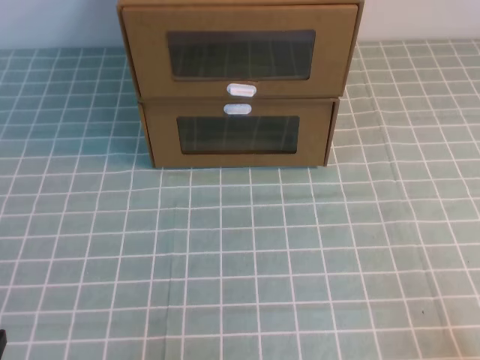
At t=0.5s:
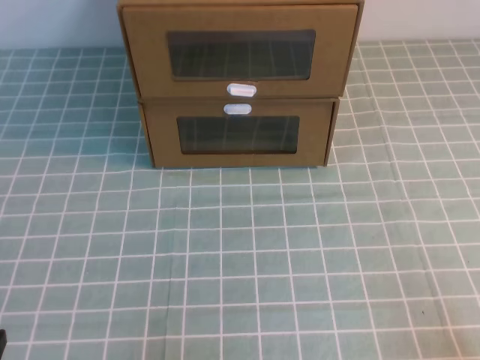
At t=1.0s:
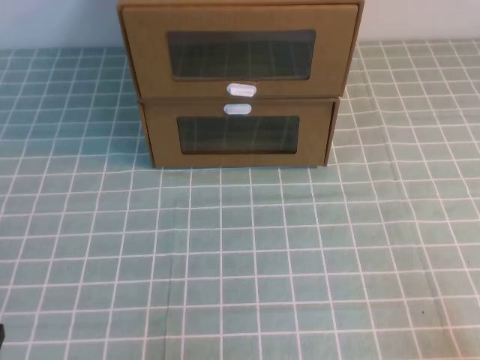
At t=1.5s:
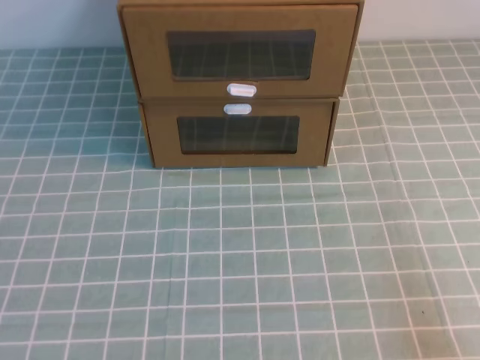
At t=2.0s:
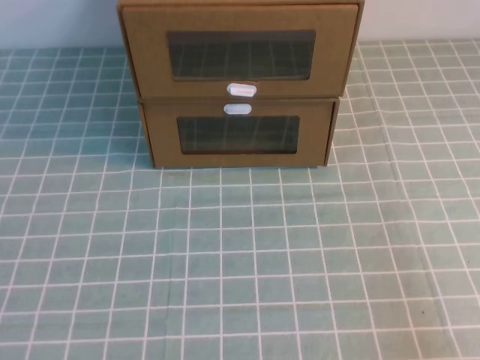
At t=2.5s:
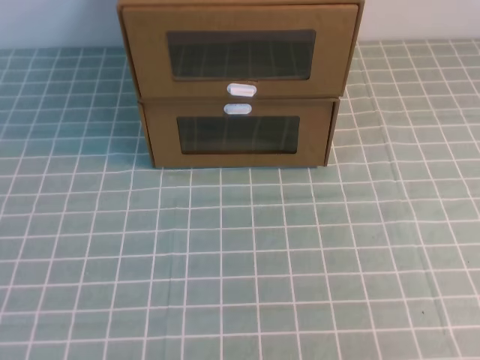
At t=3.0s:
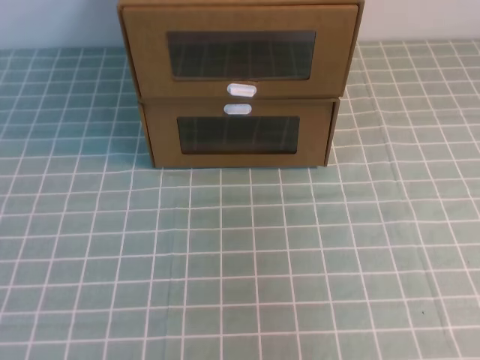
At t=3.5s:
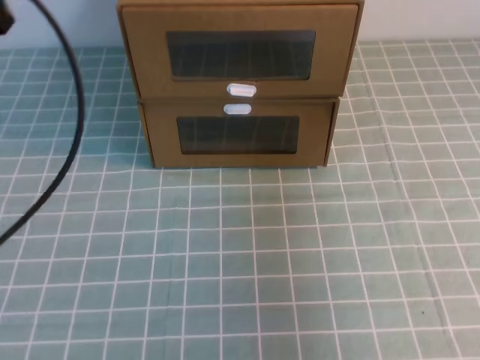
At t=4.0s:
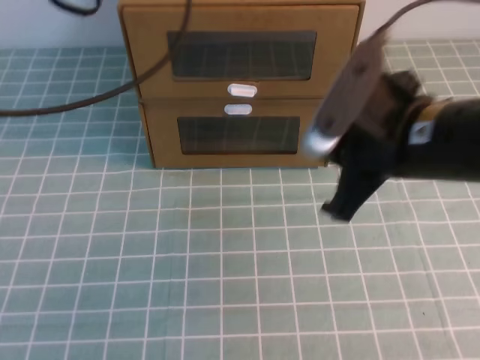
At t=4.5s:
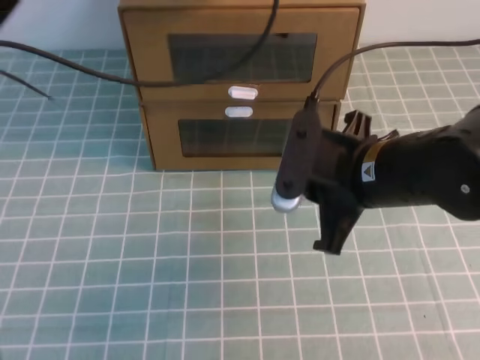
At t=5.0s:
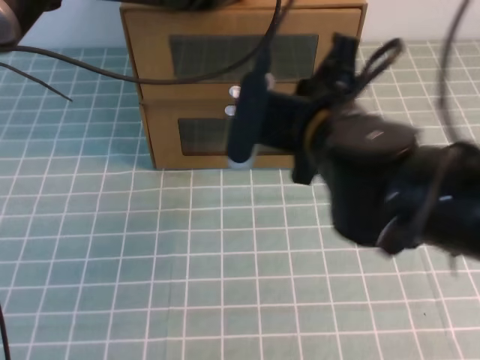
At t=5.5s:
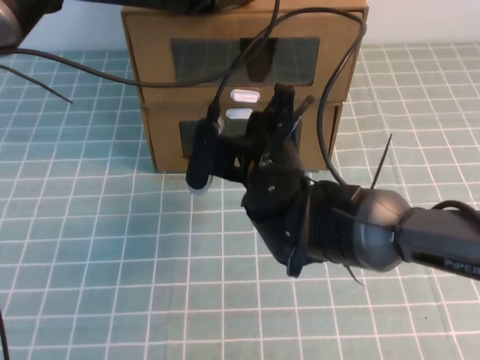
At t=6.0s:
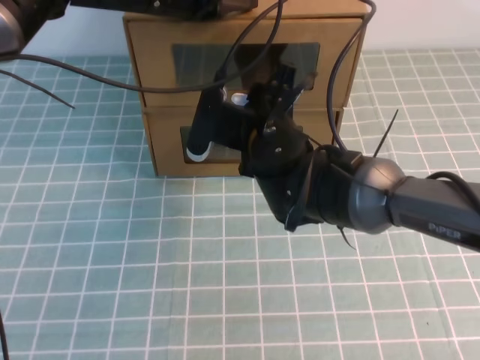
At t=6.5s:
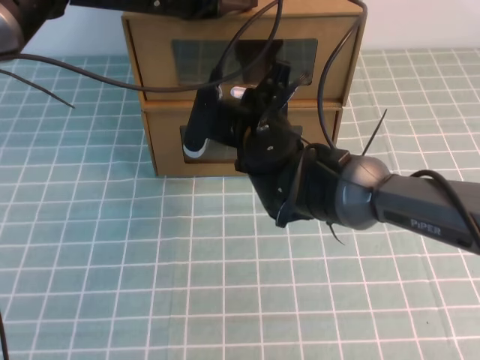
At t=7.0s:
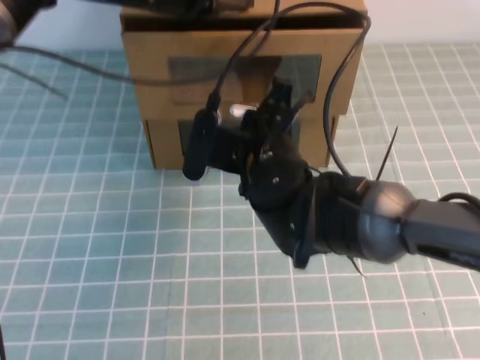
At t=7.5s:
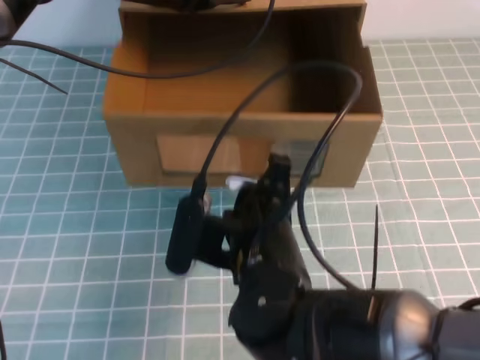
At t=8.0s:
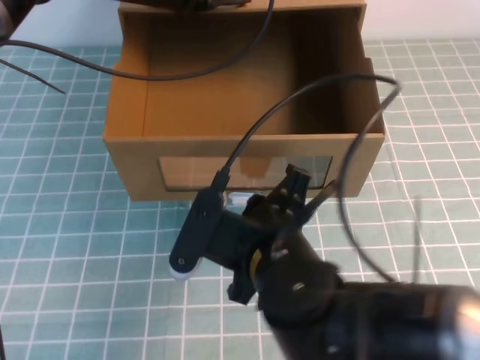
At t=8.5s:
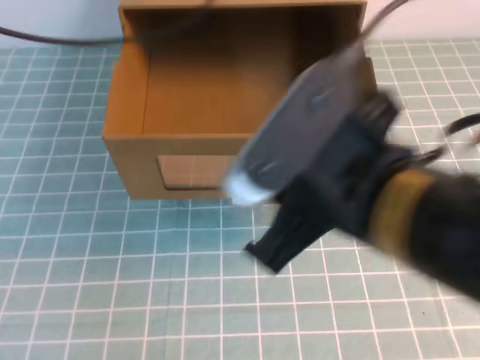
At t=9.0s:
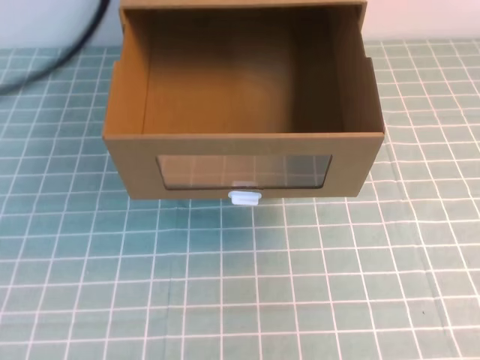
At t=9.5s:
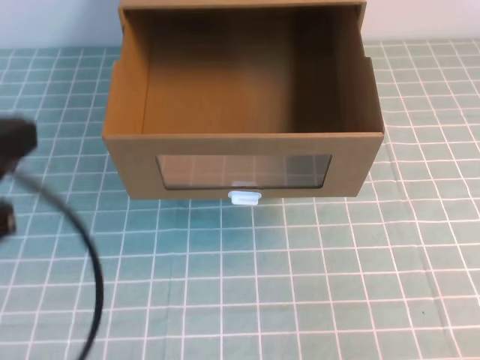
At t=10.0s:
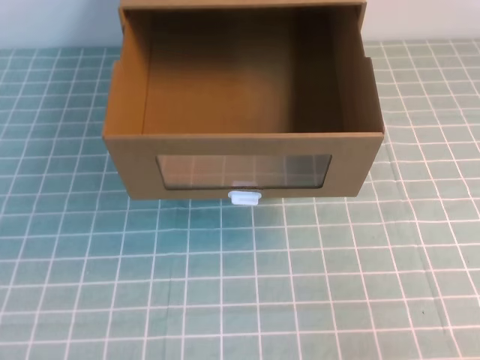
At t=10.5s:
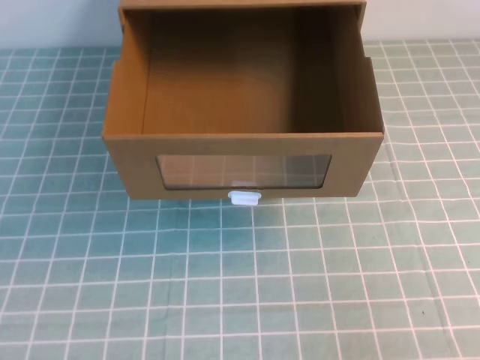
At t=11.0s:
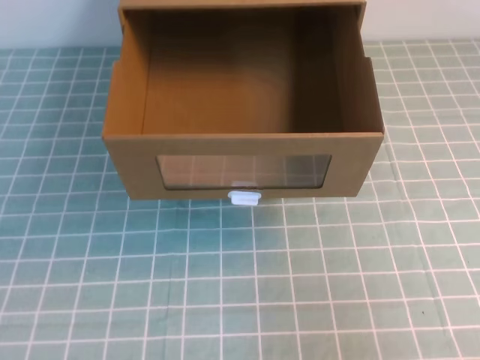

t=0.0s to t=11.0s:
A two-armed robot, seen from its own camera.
Task of the whole recording: open the shoebox on the cyan tablecloth.
t=2.0s to t=3.5s: The two grippers go approximately 25 cm forward and upward.
t=3.5s to t=5.5s: The right gripper is displaced to the left and downward by roughly 35 cm, and opens up. Meanwhile the left gripper heads forward and to the right, covering some 25 cm.
t=5.5s to t=7.5s: The right gripper goes some 10 cm backward, and closes its fingers.
t=7.5s to t=9.0s: The right gripper travels to the right, upward and backward by roughly 35 cm, and opens, then closes again, while the left gripper travels backward, upward and to the left by roughly 30 cm.
t=9.0s to t=11.0s: The left gripper shifts approximately 30 cm downward and backward. Meanwhile the right gripper goes approximately 10 cm downward.

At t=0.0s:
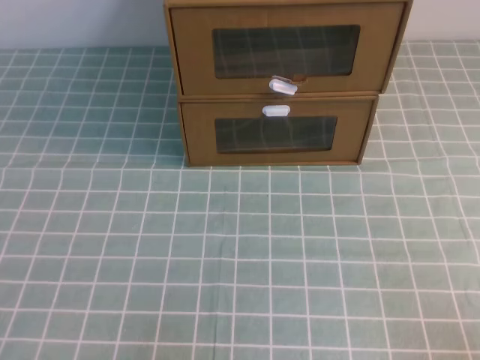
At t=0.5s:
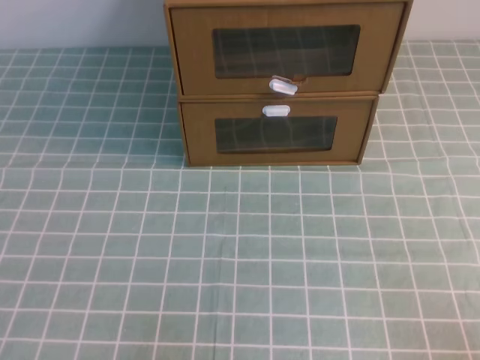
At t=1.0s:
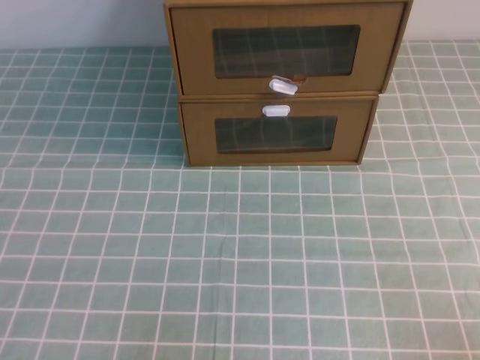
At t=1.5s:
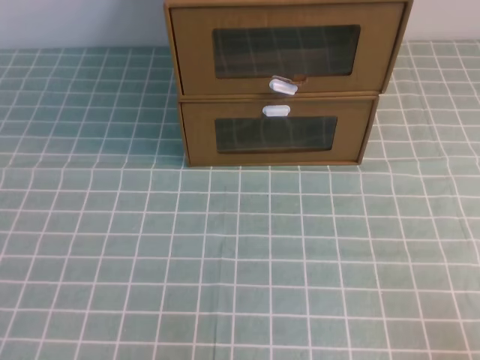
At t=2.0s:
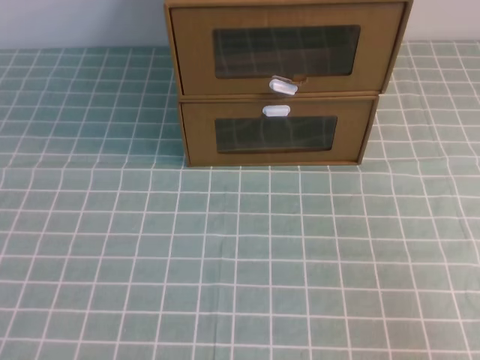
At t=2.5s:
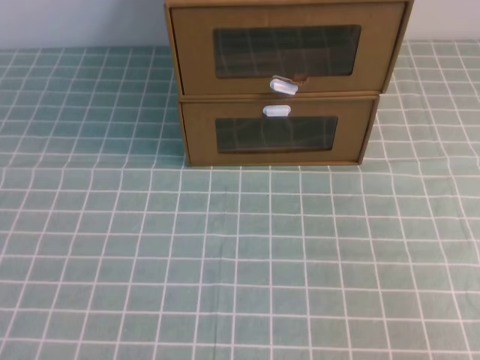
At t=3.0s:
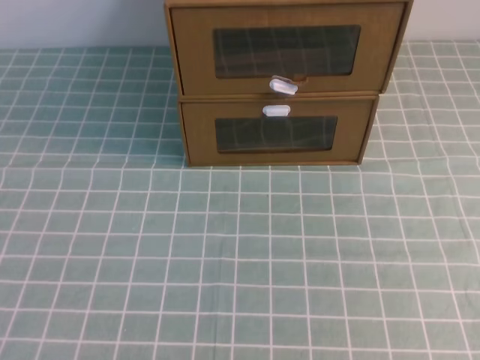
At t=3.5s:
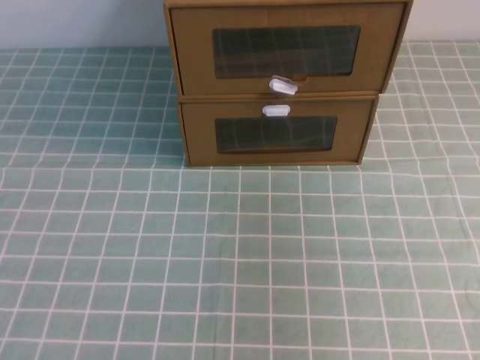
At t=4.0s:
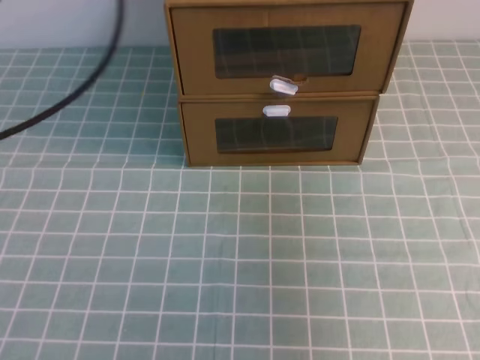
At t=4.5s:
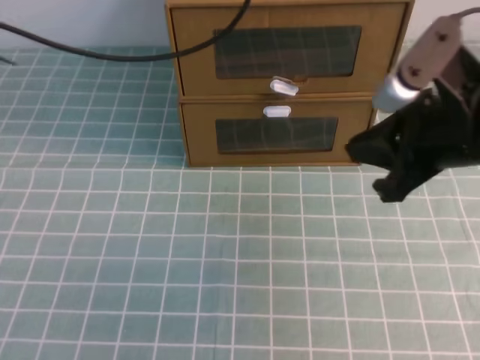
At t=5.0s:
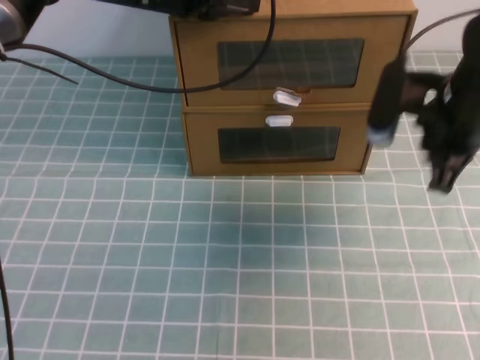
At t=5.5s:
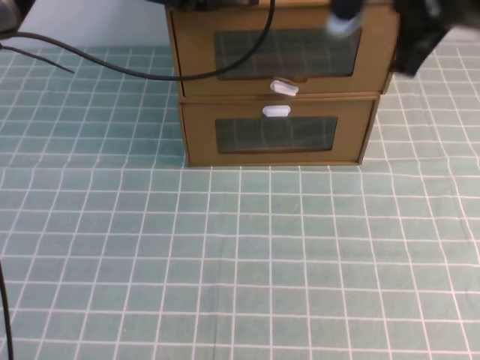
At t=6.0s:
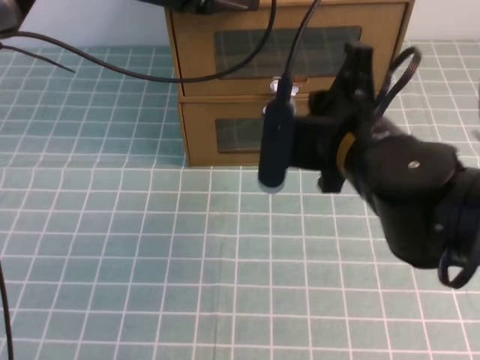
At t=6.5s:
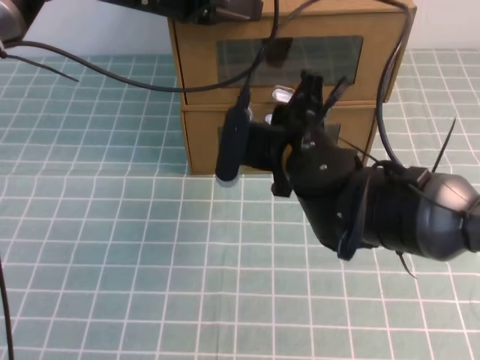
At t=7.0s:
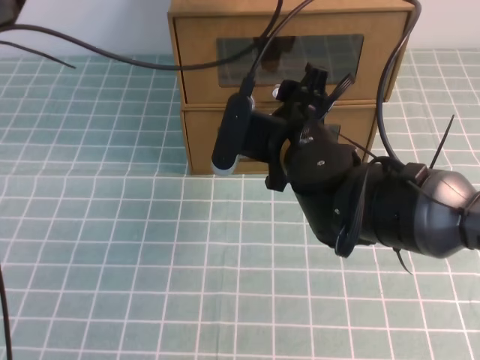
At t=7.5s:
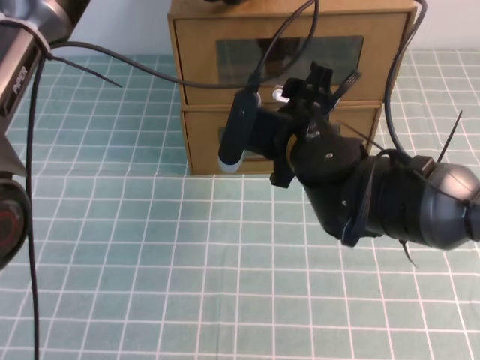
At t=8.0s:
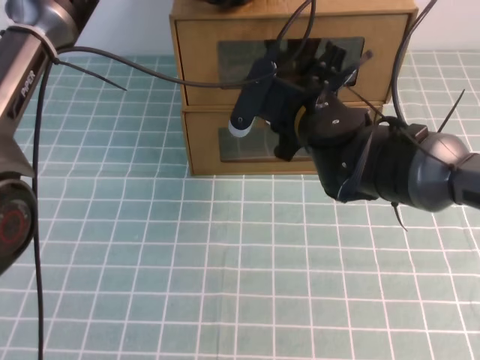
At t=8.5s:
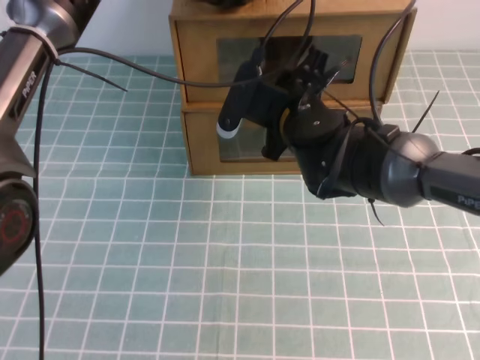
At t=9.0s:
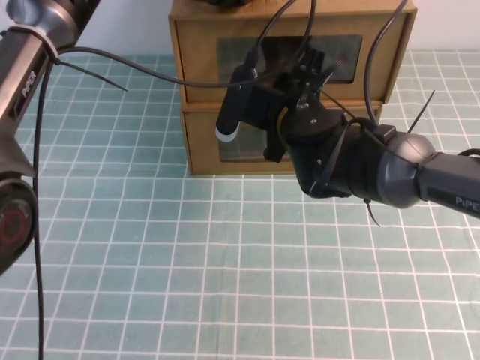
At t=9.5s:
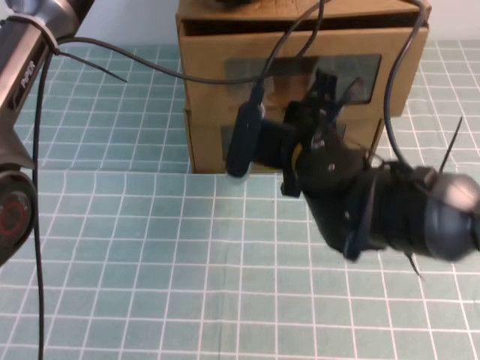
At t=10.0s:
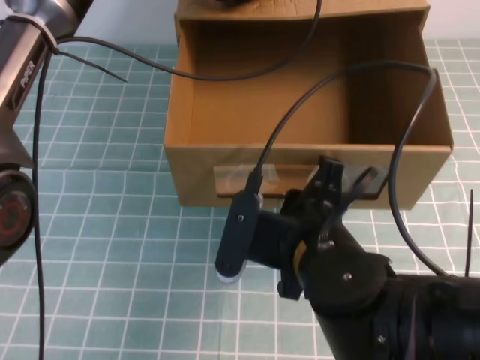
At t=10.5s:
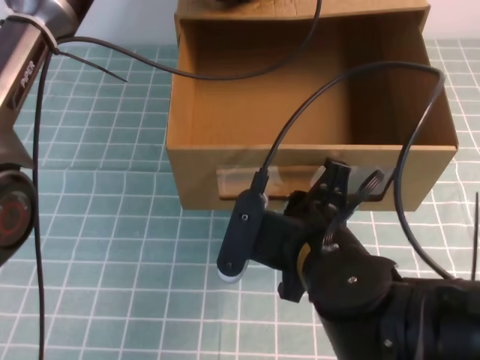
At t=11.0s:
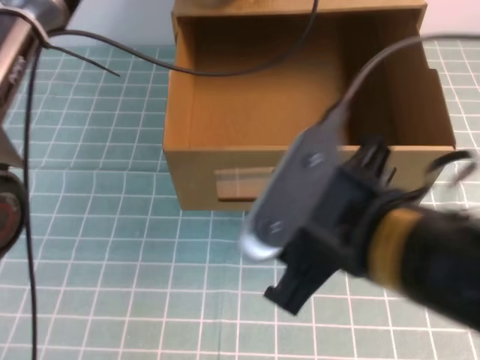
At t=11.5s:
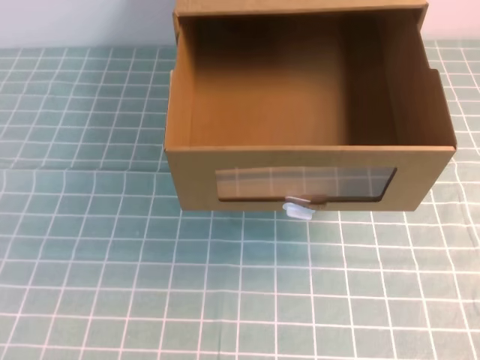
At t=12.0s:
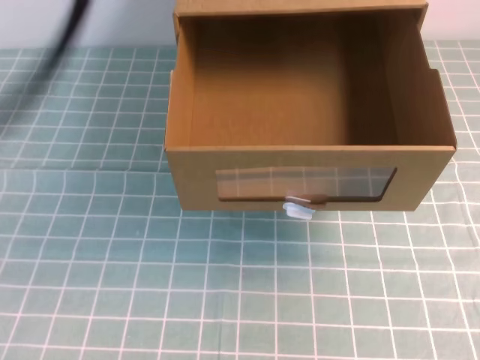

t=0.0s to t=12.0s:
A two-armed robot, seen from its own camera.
Task of the whole recording: open the shoebox on the cyan tablecloth.
t=2.0s to t=4.0s: The left gripper heads forward and upward, covering about 30 cm. The right gripper is displaced upward and forward by approximately 20 cm.
t=4.0s to t=6.0s: The left gripper is displaced forward, to the right and downward by some 20 cm; the right gripper goes some 20 cm to the left and downward.
t=6.0s to t=8.0s: The right gripper is displaced forward by about 10 cm, and opens up.
t=8.0s to t=10.0s: The right gripper travels backward by some 15 cm, and closes its fingers.
t=10.0s to t=12.0s: The left gripper travels backward, upward and to the left by approximately 40 cm, while the right gripper is displaced to the right, upward and backward by approximately 35 cm, and opens, then closes again.

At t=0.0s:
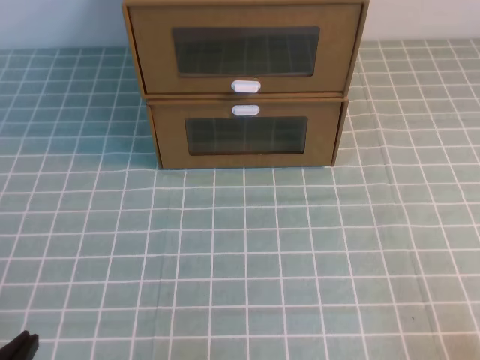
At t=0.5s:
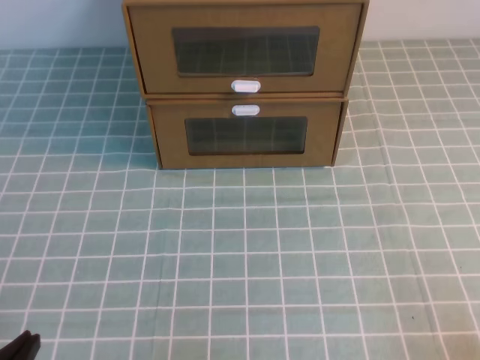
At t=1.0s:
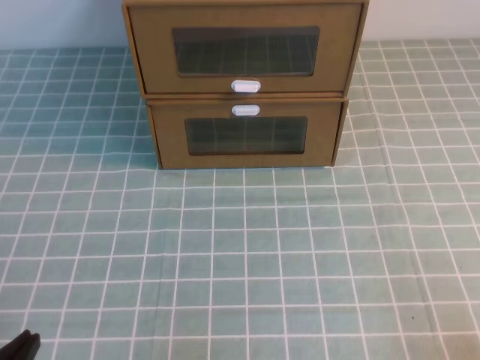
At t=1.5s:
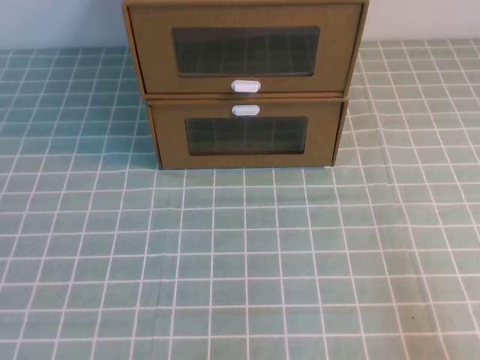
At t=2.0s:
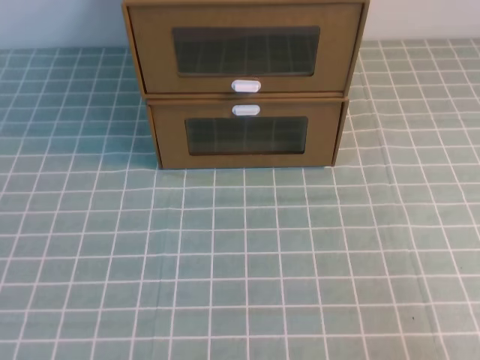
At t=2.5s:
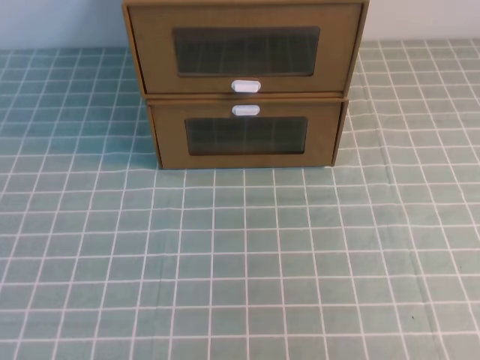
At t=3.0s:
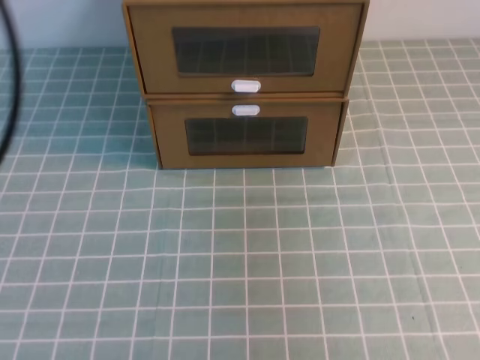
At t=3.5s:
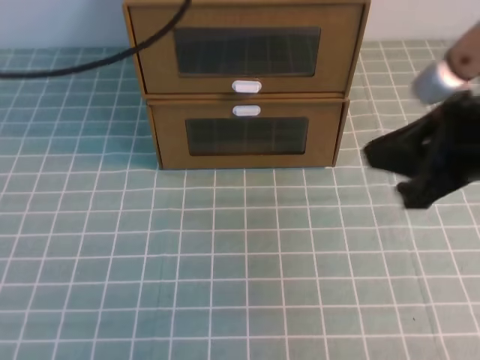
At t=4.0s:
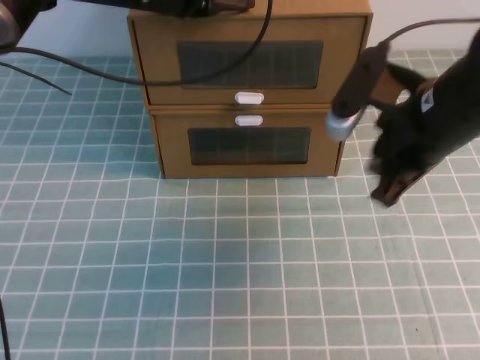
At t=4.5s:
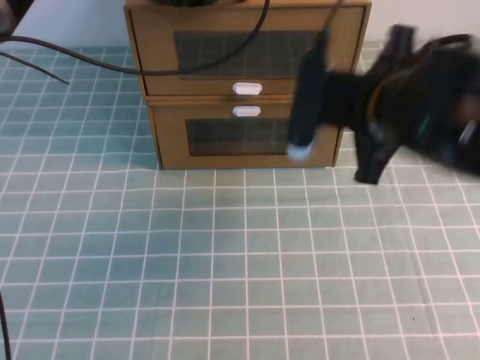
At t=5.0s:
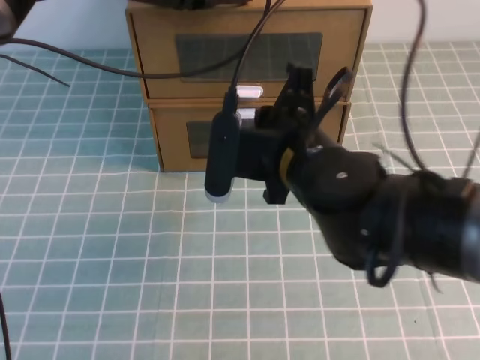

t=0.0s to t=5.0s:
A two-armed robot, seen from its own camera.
Task of the whole recording: open the shoebox on the cyan tablecloth.
t=2.5s to t=5.0s: The left gripper travels forward and to the right by approximately 50 cm; the right gripper goes about 35 cm forward and to the left.
